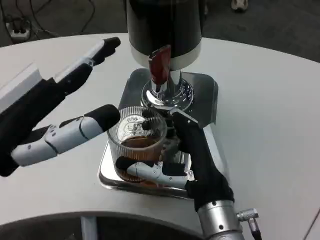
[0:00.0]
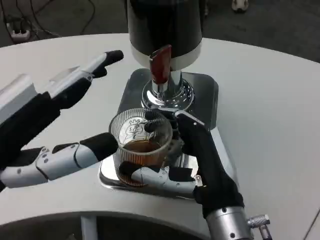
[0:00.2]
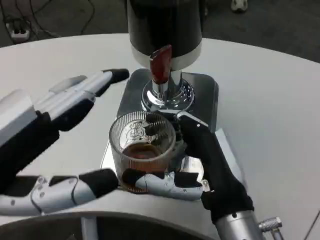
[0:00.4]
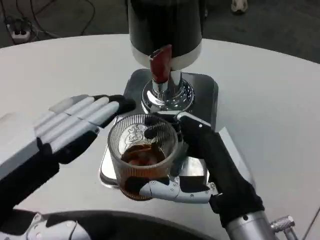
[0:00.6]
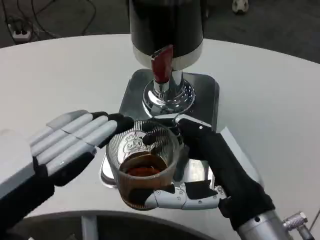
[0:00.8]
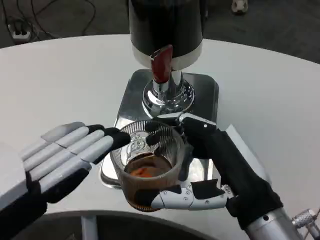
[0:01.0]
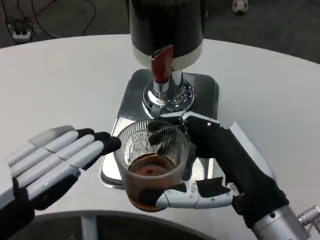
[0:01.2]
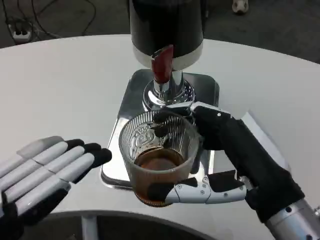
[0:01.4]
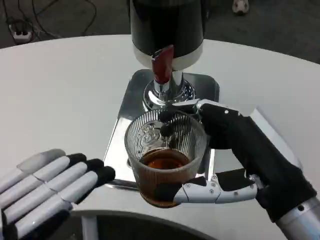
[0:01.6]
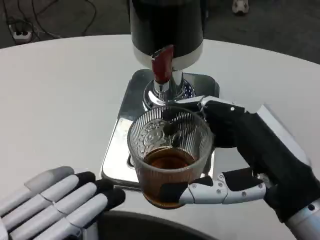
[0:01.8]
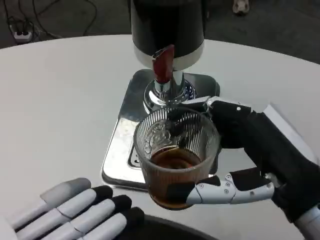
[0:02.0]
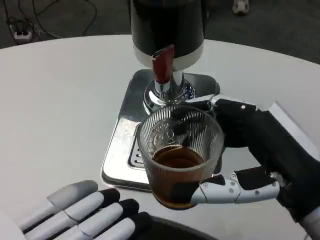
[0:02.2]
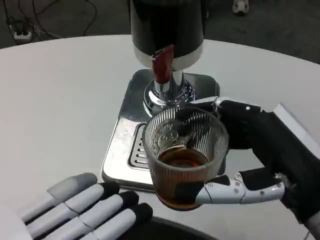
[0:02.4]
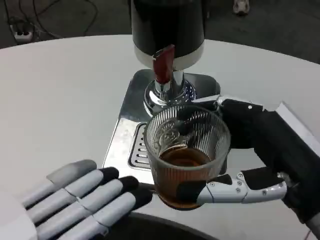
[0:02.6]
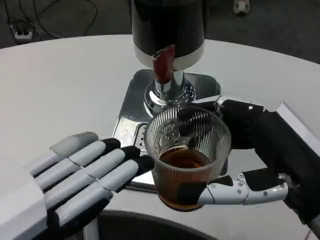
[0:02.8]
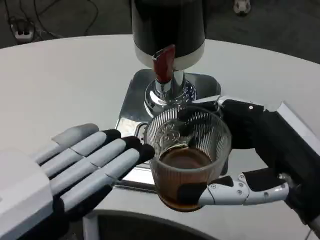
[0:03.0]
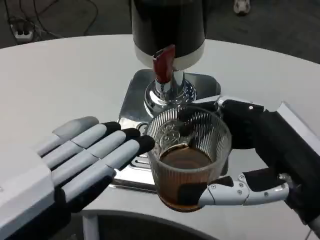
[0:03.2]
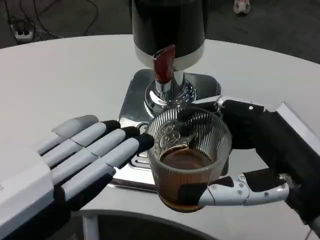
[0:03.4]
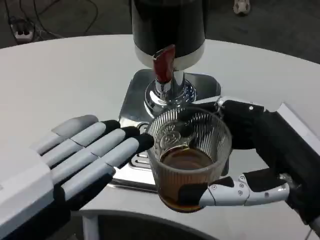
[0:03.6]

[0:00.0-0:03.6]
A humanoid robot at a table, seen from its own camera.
Task of the whole recording: Grasp the cup under the faucet to collect the drink, then remove the cup.
0:00.0 to 0:01.8: The left hand is displaced backward by about 10 cm. The right hand moves to the right, upward and backward, roughly 15 cm.

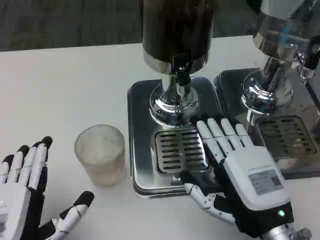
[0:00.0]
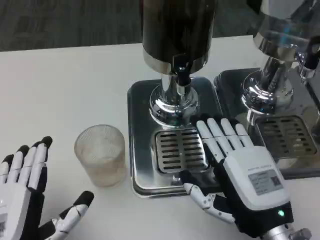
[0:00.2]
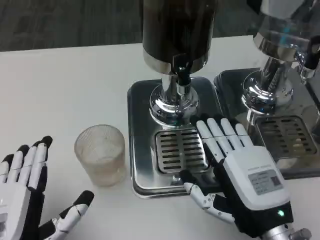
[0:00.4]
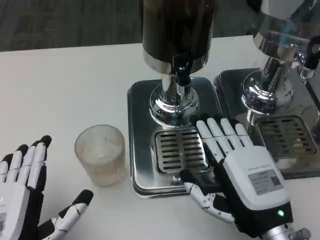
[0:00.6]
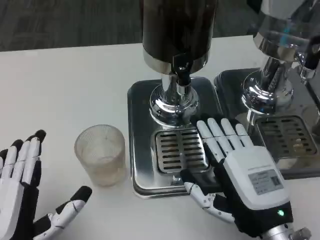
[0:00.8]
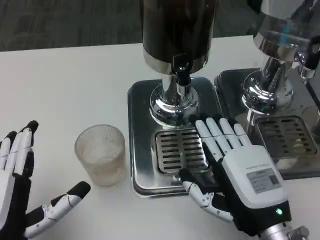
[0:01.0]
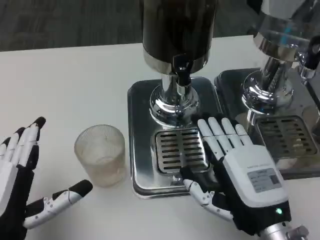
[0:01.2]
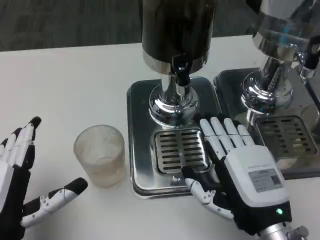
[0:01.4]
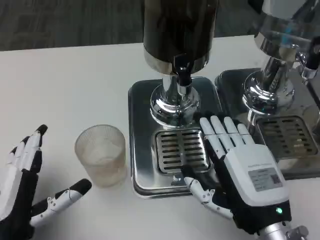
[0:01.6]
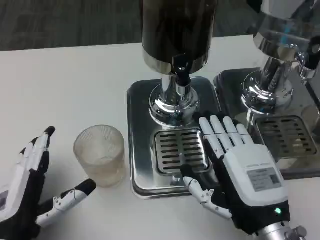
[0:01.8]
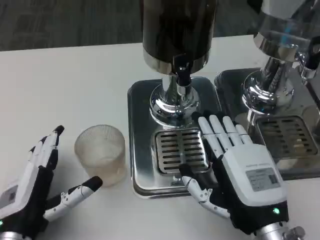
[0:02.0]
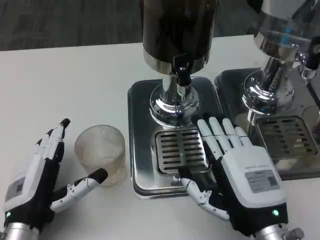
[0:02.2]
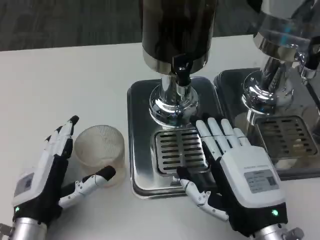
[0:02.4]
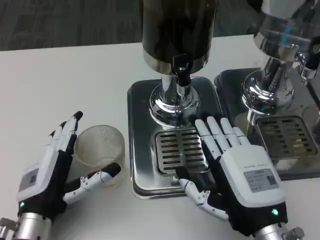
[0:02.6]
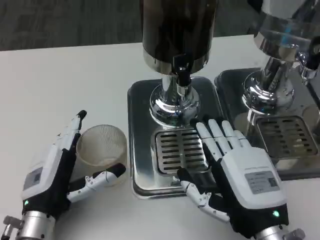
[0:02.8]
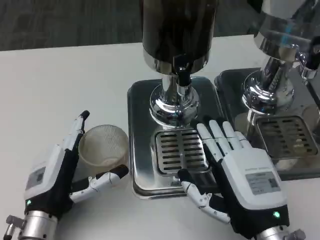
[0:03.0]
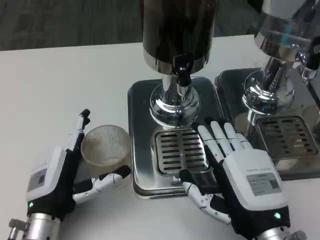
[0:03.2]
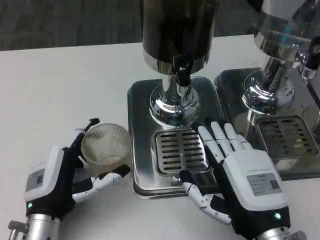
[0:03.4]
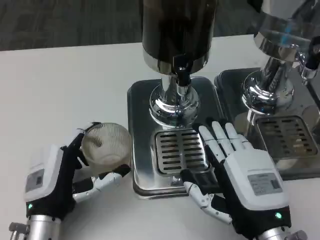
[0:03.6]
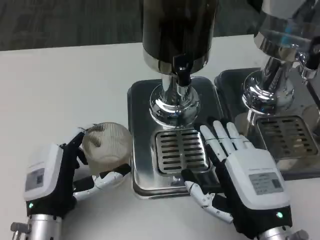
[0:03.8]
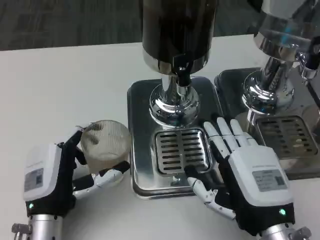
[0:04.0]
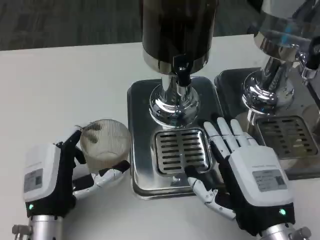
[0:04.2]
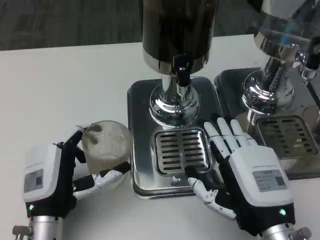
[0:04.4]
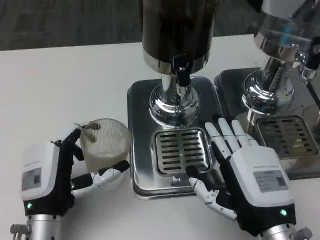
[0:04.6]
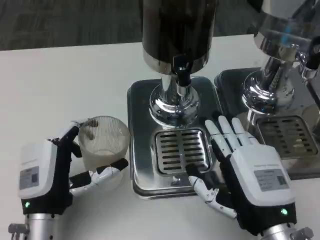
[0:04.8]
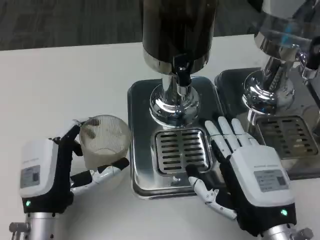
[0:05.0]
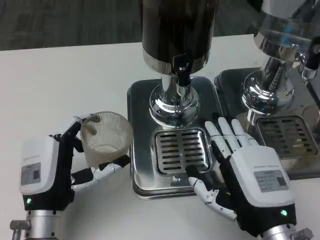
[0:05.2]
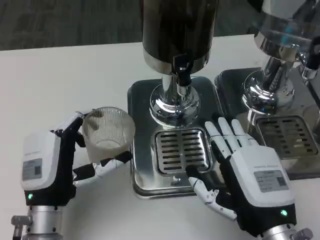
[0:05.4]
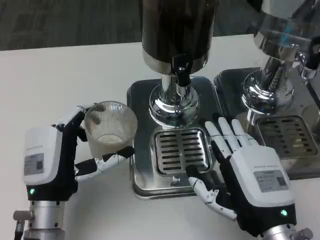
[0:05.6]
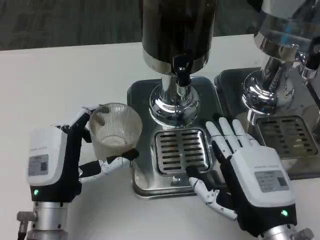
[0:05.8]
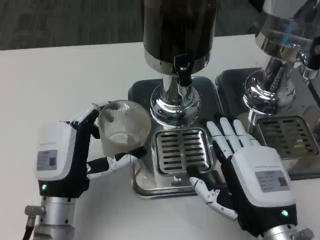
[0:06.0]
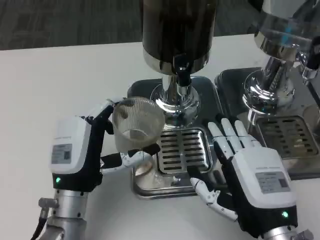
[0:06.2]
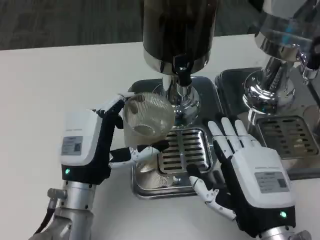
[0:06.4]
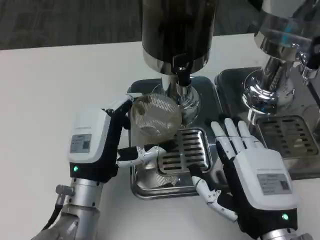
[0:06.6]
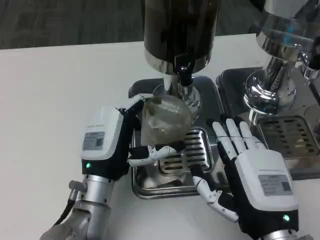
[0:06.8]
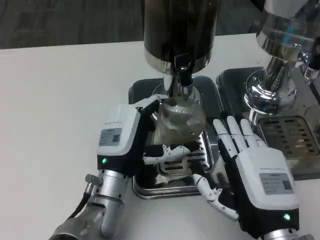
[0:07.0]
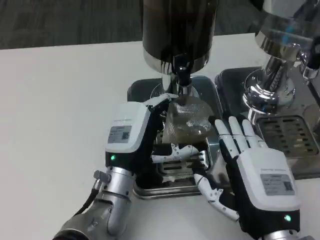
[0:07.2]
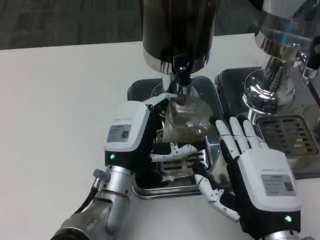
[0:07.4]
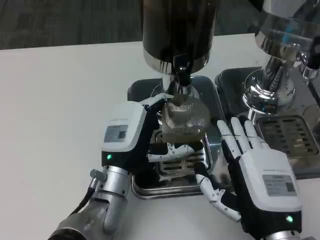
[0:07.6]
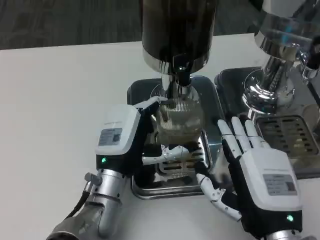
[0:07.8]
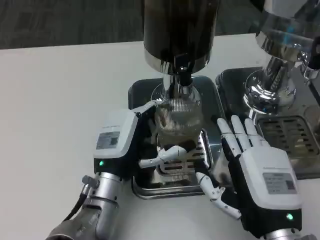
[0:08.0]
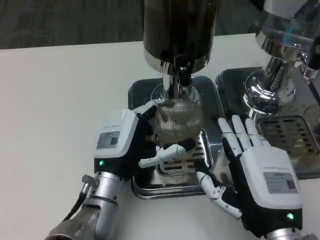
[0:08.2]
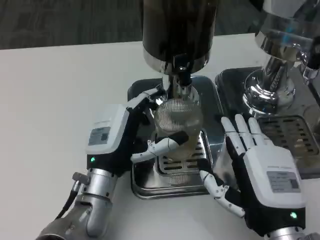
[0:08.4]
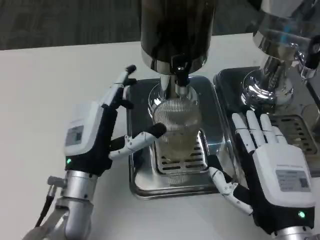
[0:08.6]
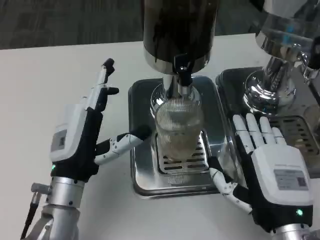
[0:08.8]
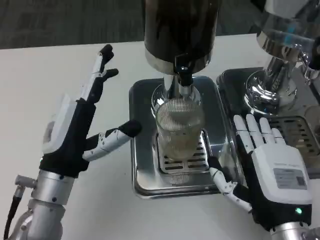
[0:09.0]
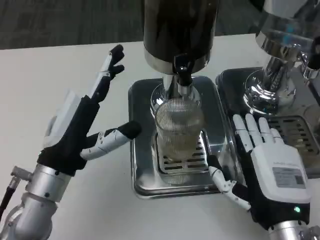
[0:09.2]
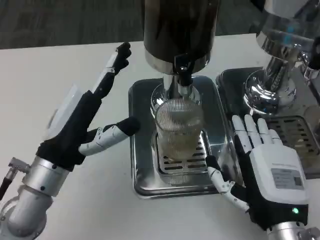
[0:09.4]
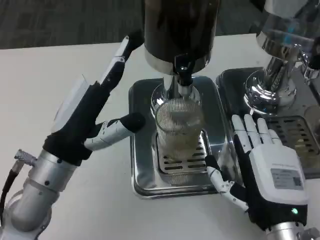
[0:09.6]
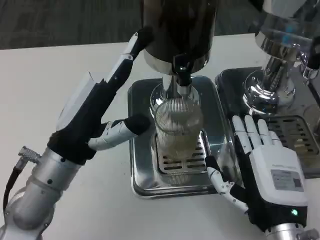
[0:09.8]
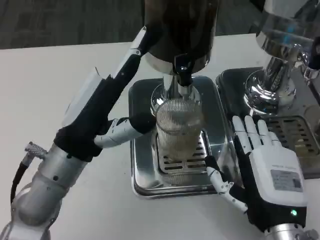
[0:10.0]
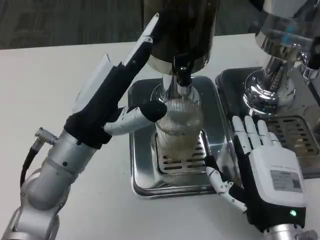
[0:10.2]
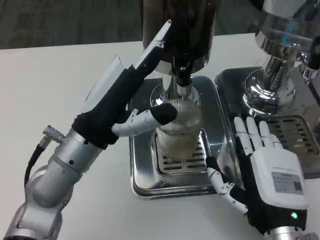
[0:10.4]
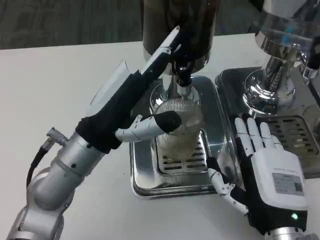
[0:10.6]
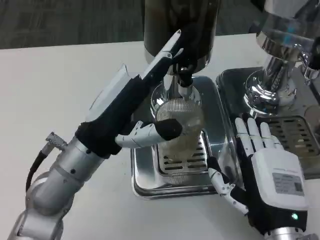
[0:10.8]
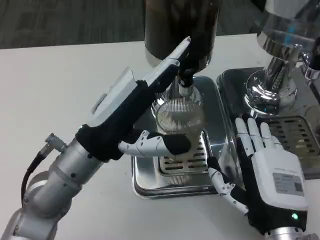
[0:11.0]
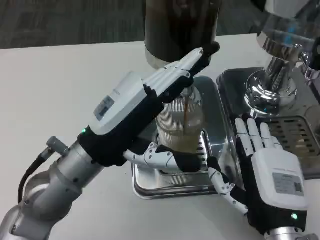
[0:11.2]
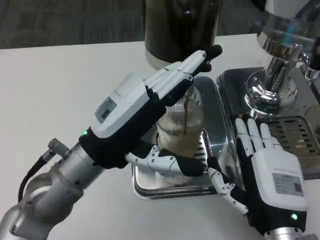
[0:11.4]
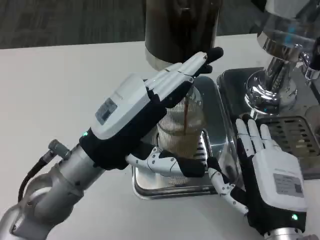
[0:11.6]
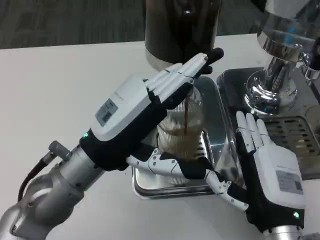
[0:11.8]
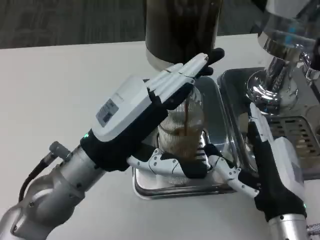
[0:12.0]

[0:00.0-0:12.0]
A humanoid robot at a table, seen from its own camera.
Task of the whole recording: Grasp the cup under the faucet to collect the drink, then remove the cup.
0:00.0 to 0:01.6: The left hand changes place by about 5 cm.
0:01.6 to 0:03.0: The left hand heads forward, covering about 5 cm.
0:03.0 to 0:04.4: The hands move only a little.
0:04.4 to 0:06.0: The hands move only a little.
0:06.0 to 0:07.6: The left hand is displaced to the right by some 5 cm.
0:07.6 to 0:09.0: The left hand travels to the left by roughly 10 cm.
0:09.0 to 0:10.4: The left hand goes approximately 5 cm upward.

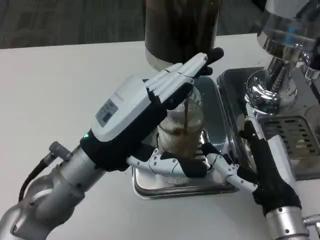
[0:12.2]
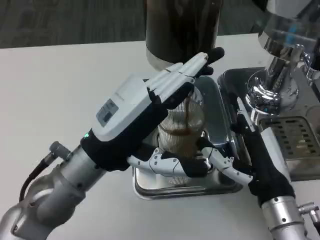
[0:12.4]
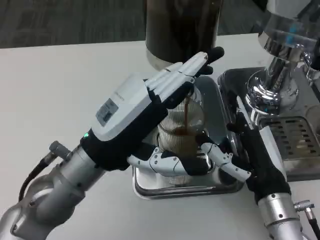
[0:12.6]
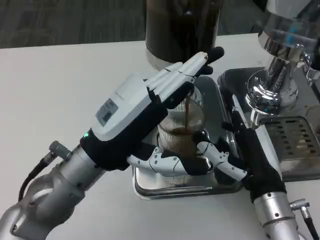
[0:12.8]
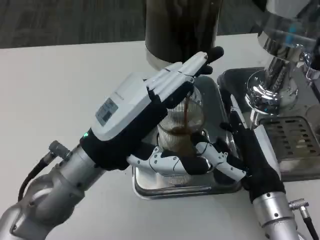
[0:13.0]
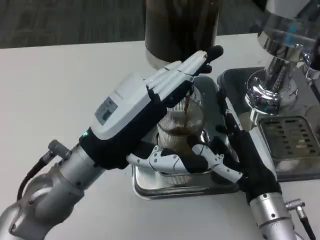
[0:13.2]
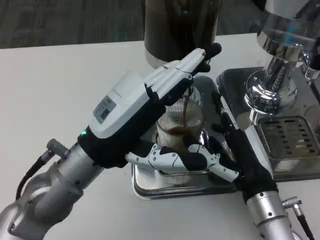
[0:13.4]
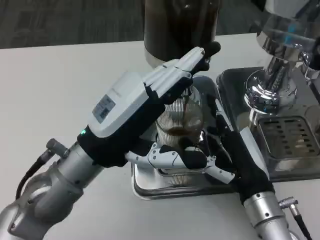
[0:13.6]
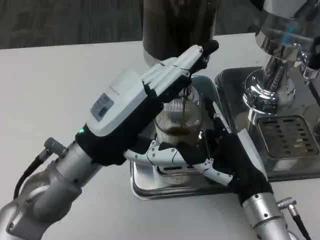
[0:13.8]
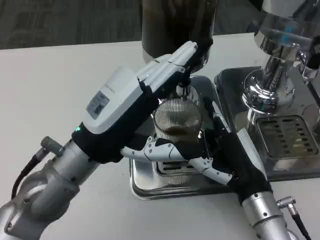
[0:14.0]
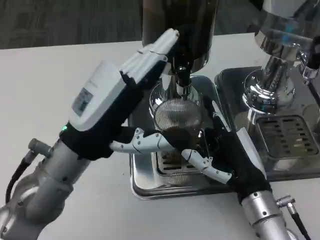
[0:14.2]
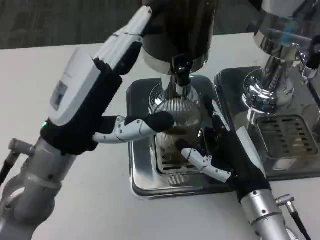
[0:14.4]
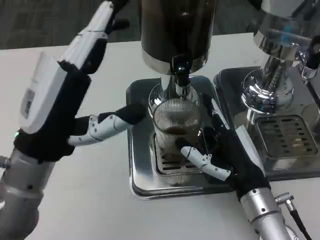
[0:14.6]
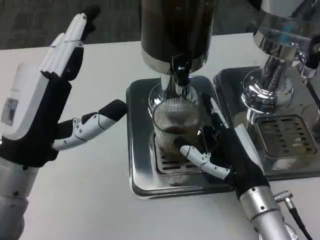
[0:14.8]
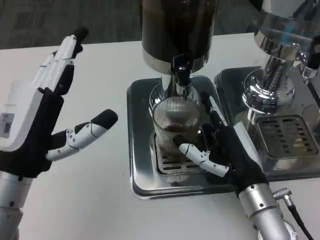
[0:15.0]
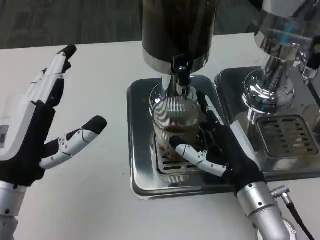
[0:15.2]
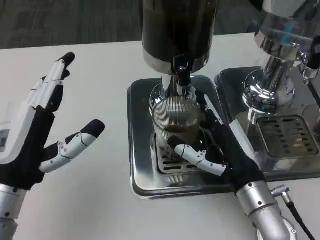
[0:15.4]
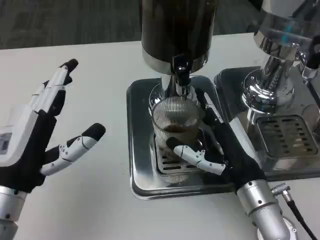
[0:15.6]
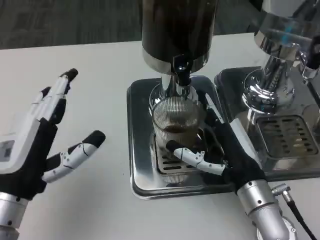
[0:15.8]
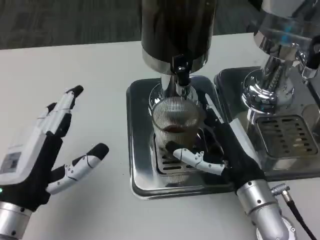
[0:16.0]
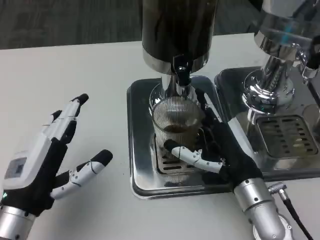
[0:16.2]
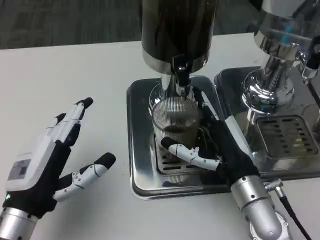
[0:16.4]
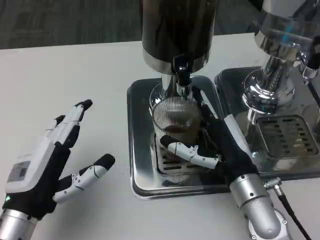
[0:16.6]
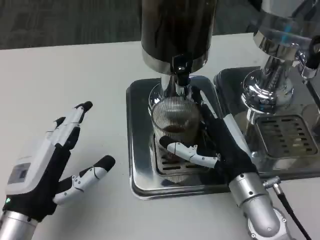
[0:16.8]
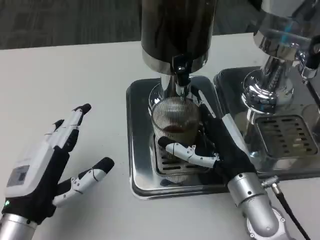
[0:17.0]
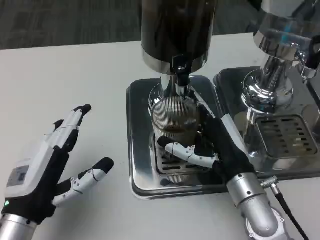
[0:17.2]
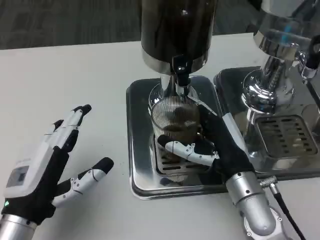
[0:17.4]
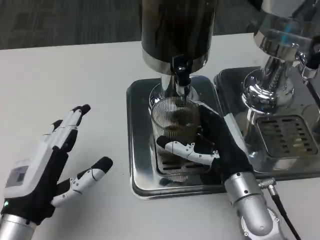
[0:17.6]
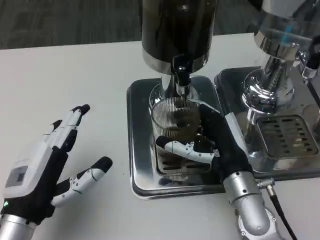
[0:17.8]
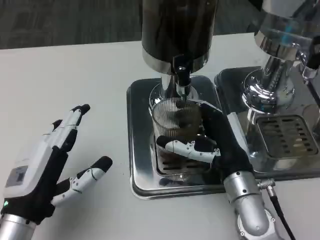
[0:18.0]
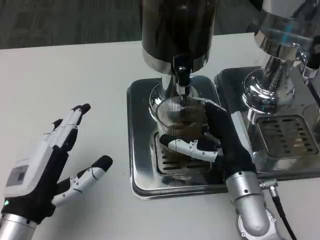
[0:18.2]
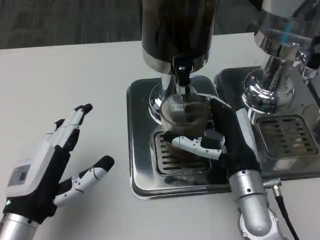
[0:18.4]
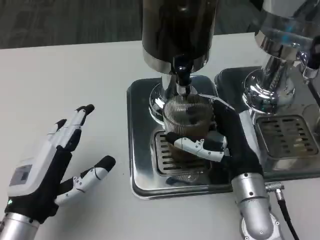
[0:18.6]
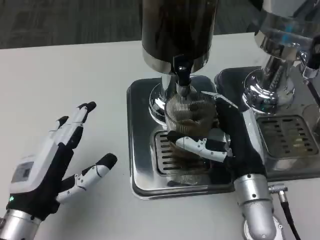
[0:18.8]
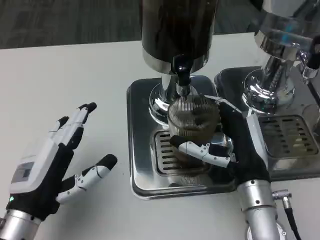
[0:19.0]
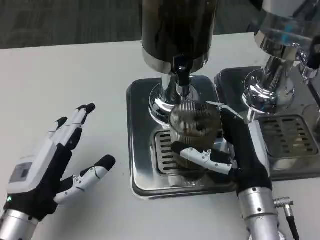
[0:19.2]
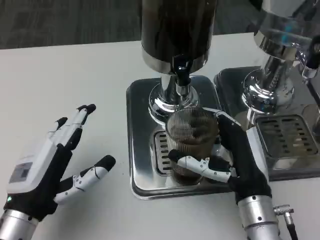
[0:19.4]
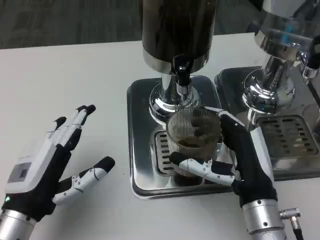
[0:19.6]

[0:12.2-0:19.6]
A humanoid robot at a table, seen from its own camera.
Task of the whole recording: Grasp the cup under the faucet to collect the drink, then remove the cup.
0:12.2 to 0:13.6: The hands make only small movements.
0:13.6 to 0:15.2: The left hand travels to the left by some 10 cm.
0:16.6 to 0:18.2: The hands make only small movements.
0:18.2 to 0:19.6: The right hand goes about 5 cm backward.
